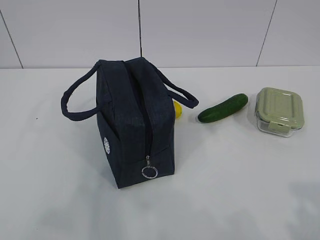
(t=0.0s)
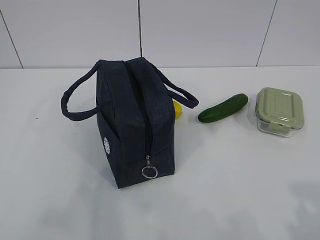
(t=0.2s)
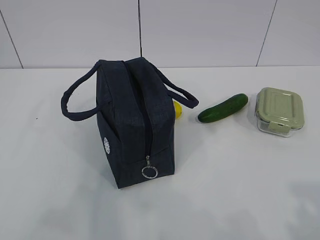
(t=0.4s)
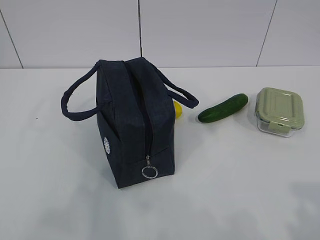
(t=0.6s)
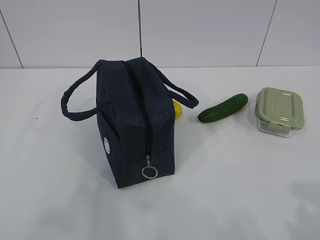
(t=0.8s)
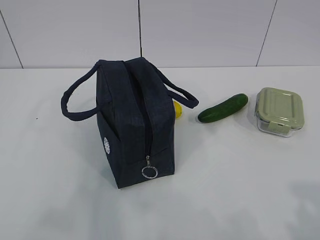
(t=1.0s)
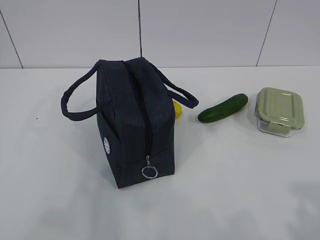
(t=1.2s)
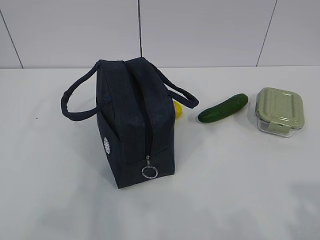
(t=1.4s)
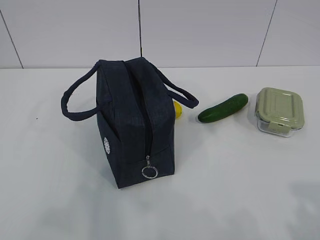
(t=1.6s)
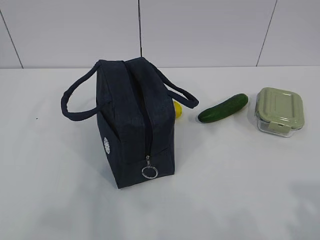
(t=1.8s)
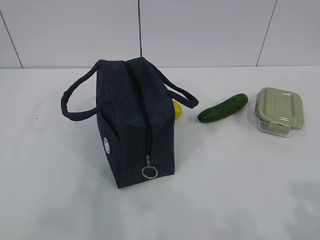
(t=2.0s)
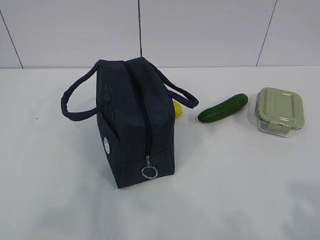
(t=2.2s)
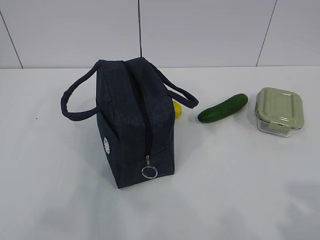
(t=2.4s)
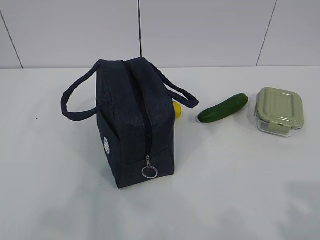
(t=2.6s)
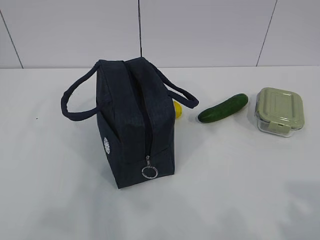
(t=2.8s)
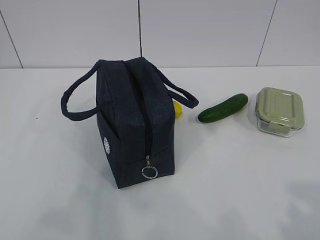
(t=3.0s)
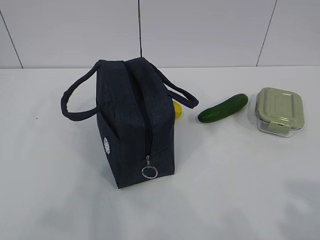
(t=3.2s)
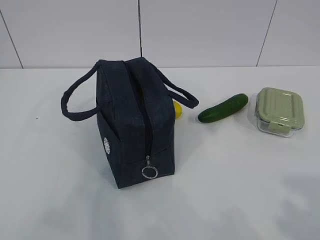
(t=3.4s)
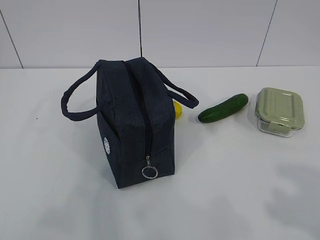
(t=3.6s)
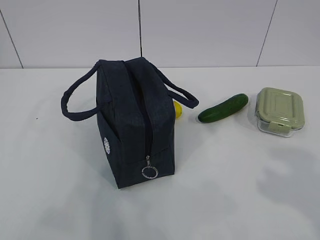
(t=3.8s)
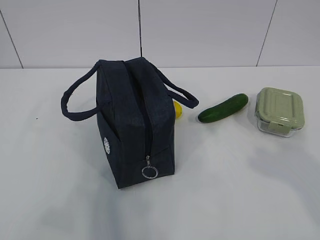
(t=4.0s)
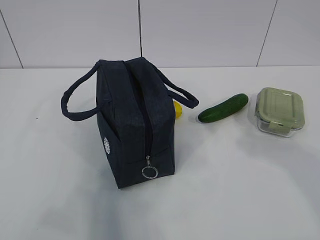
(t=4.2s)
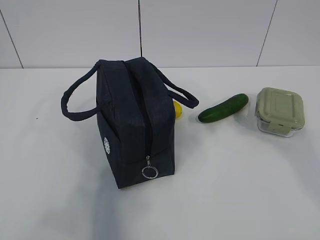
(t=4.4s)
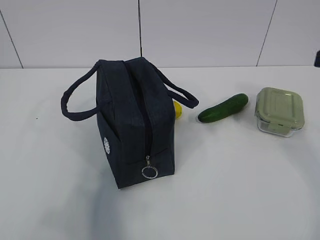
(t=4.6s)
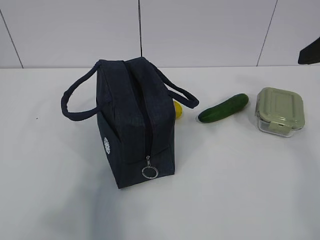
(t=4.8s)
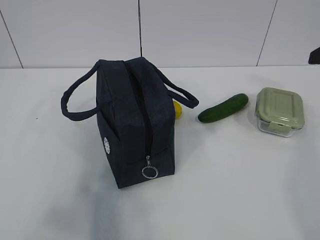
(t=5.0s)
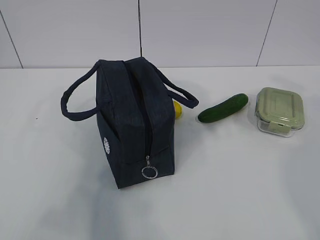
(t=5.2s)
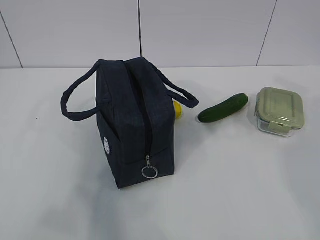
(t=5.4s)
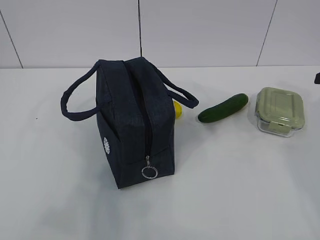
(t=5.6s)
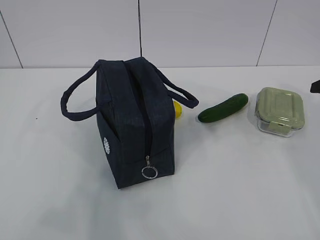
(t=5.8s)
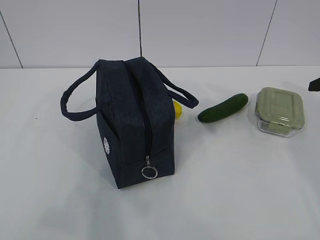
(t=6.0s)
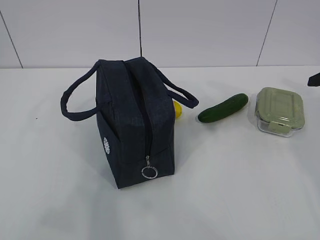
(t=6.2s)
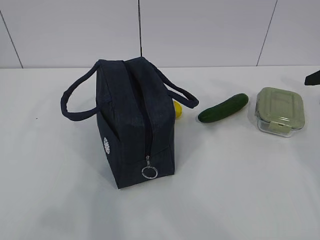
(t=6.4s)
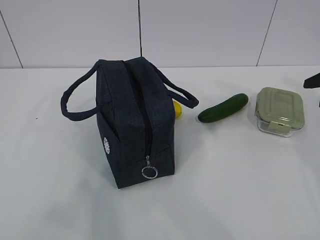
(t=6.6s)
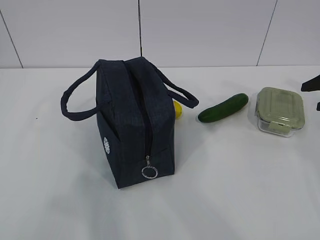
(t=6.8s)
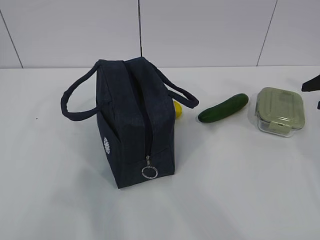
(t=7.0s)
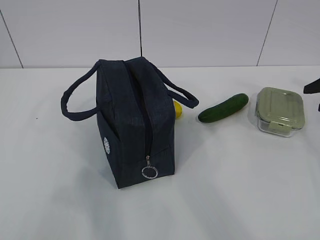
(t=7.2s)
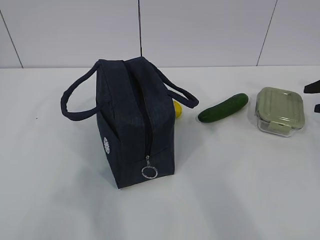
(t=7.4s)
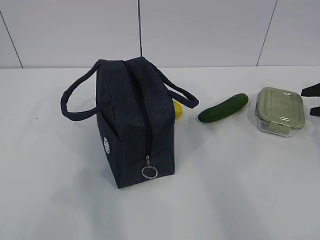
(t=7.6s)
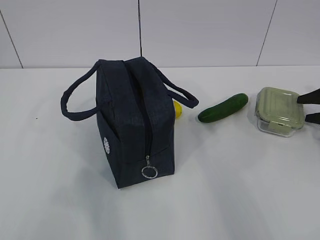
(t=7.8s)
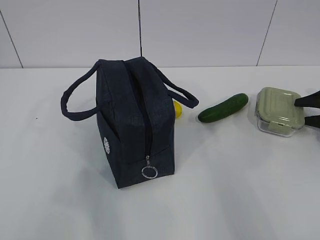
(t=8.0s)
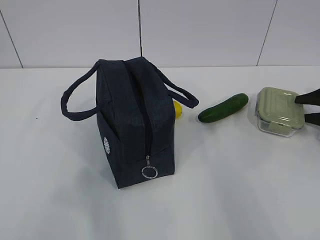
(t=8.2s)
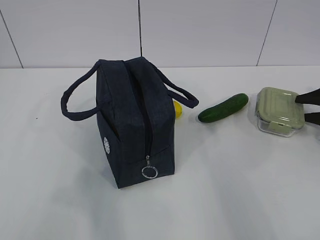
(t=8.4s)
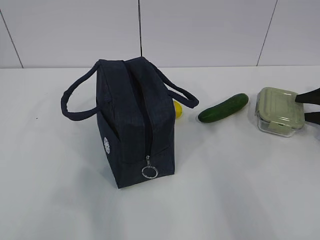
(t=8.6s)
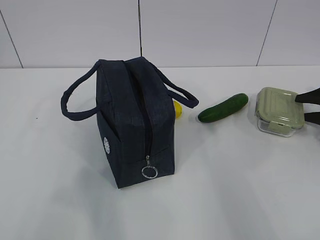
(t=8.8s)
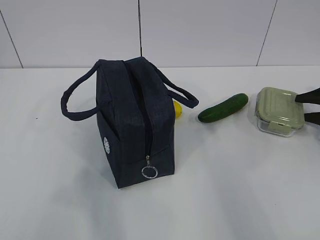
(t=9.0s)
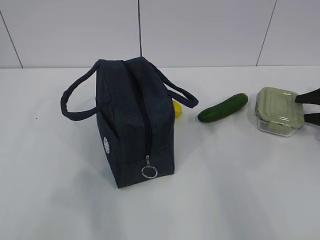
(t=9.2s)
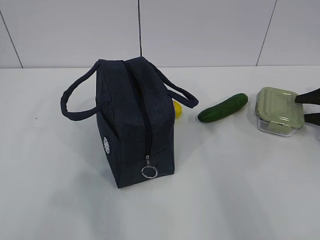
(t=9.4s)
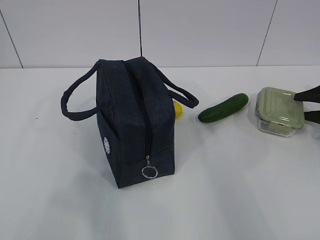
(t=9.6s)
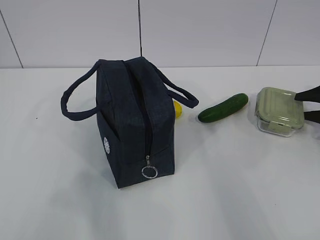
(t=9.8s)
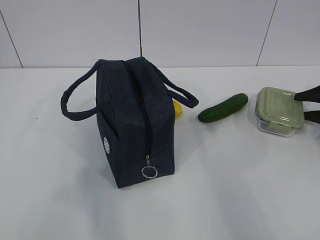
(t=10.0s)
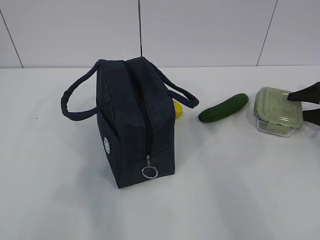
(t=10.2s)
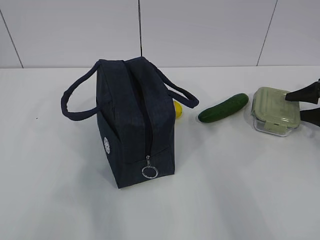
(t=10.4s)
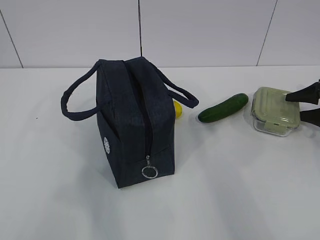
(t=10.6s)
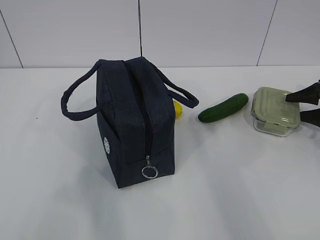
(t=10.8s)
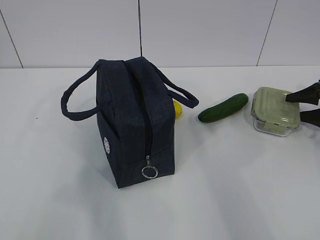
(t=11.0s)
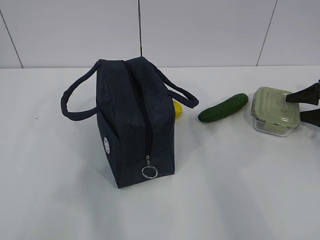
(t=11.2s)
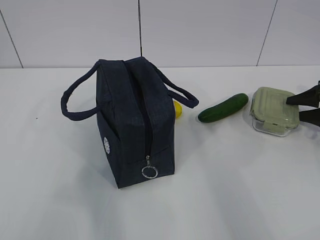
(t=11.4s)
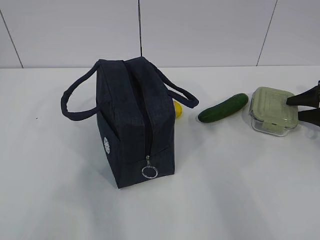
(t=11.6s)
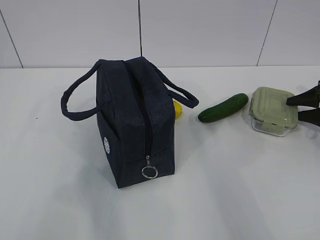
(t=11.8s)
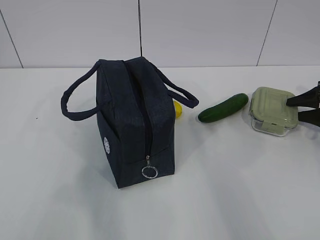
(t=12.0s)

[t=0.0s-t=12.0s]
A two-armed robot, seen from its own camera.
t=3.0s to t=4.4s: The right gripper goes some 20 cm forward and upward.
t=4.4s to t=6.0s: The right gripper goes approximately 25 cm forward, to the right and downward.
t=6.0s to t=7.6s: The right gripper heads downward, forward and to the right, covering some 15 cm.
t=9.0s to t=10.4s: There are only small adjustments of the grippers.
t=10.4s to t=12.0s: Neither gripper changes place.

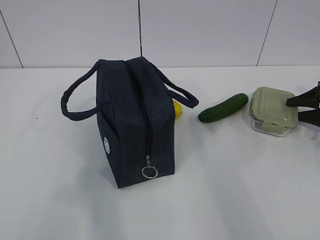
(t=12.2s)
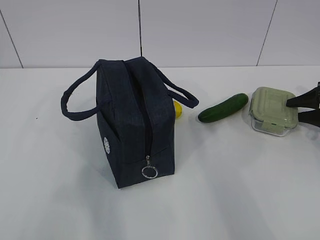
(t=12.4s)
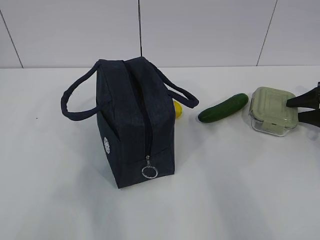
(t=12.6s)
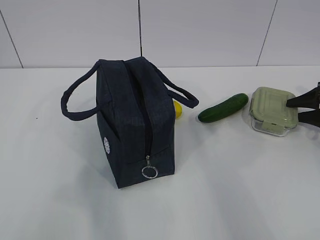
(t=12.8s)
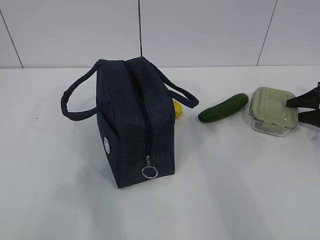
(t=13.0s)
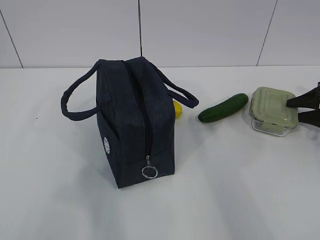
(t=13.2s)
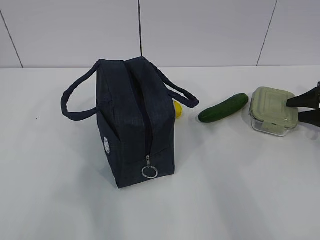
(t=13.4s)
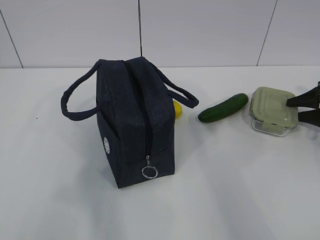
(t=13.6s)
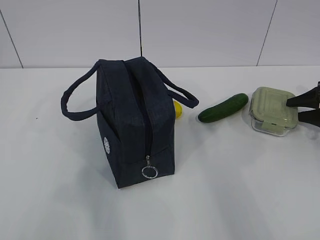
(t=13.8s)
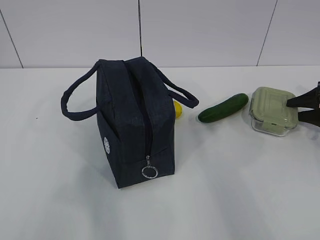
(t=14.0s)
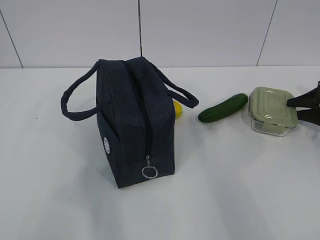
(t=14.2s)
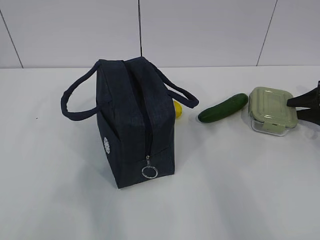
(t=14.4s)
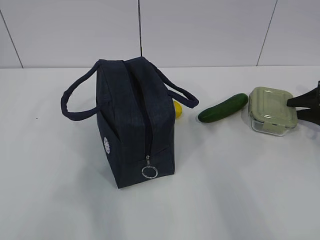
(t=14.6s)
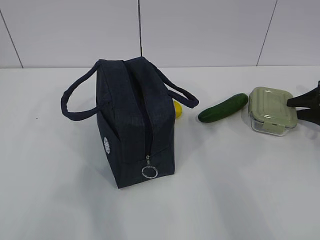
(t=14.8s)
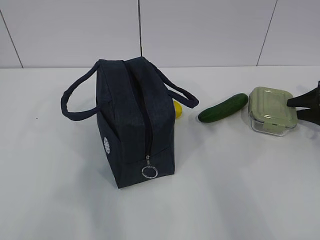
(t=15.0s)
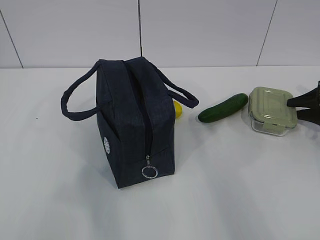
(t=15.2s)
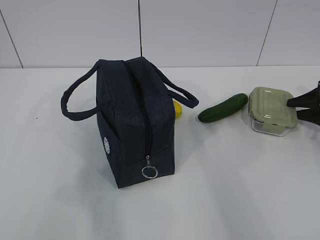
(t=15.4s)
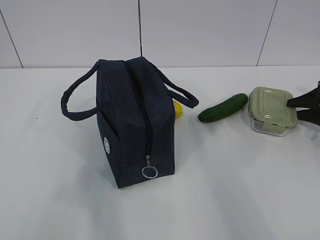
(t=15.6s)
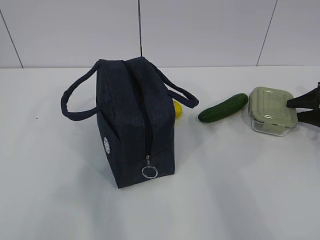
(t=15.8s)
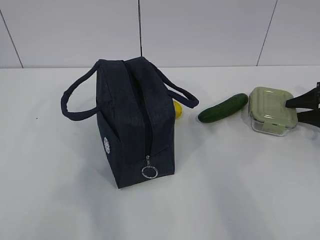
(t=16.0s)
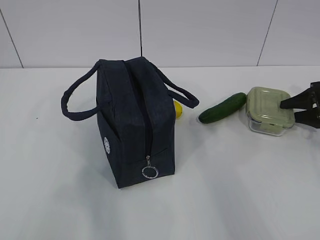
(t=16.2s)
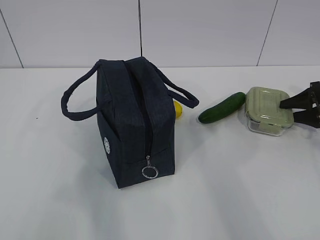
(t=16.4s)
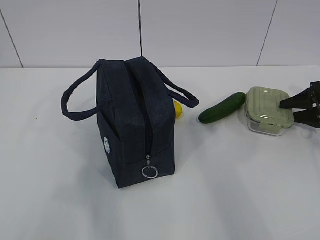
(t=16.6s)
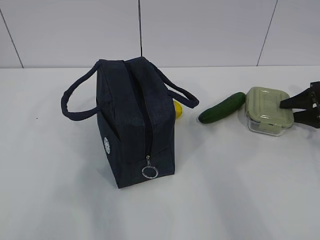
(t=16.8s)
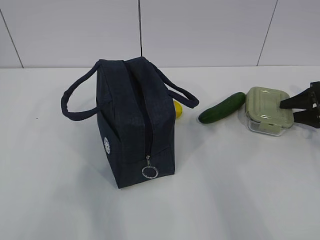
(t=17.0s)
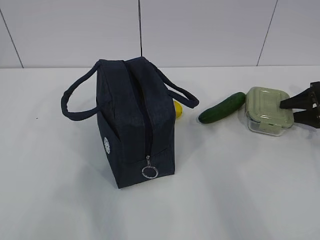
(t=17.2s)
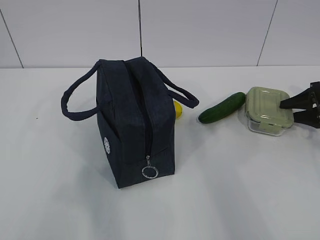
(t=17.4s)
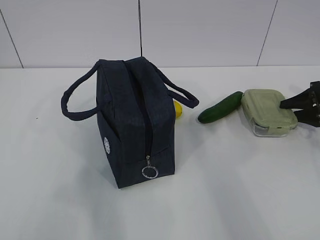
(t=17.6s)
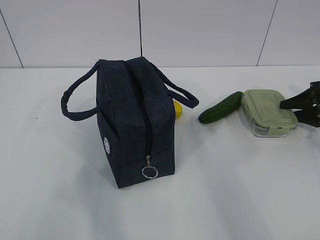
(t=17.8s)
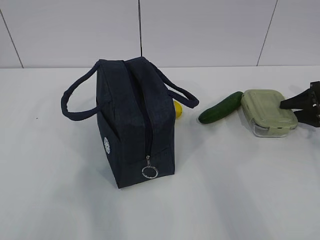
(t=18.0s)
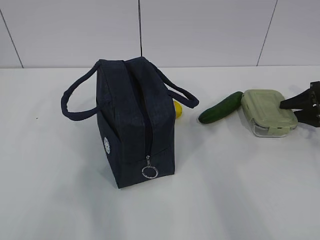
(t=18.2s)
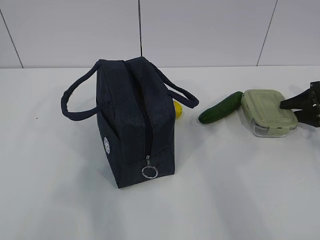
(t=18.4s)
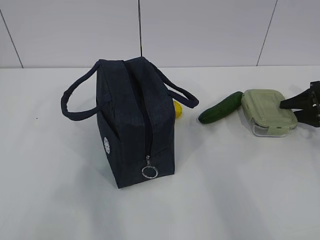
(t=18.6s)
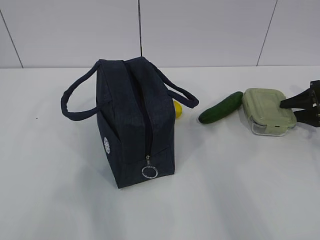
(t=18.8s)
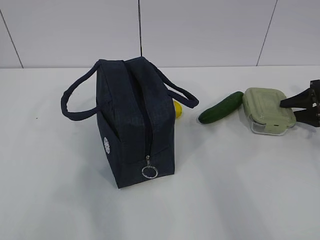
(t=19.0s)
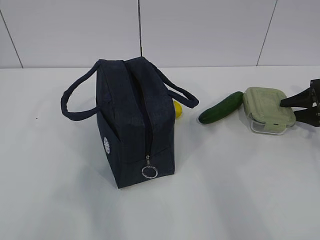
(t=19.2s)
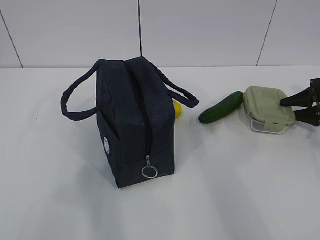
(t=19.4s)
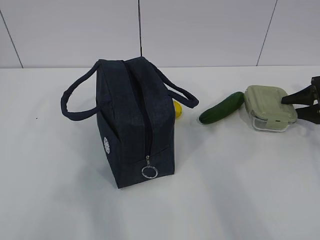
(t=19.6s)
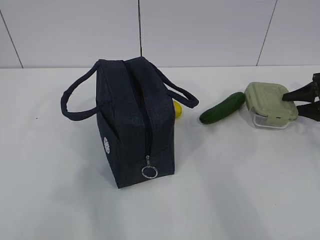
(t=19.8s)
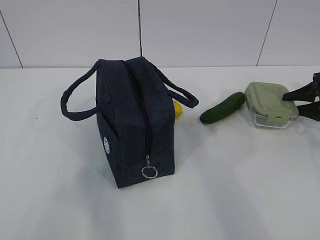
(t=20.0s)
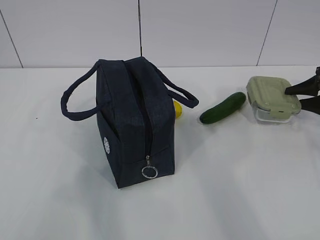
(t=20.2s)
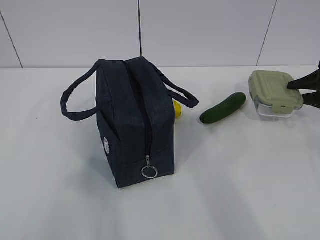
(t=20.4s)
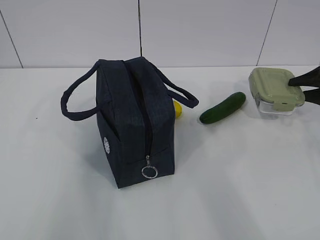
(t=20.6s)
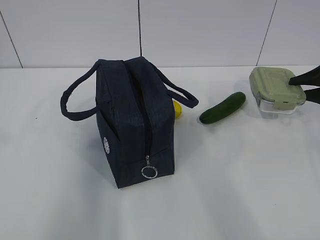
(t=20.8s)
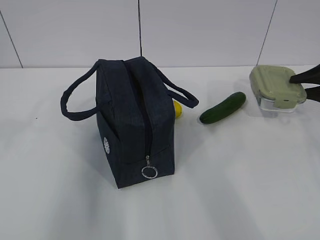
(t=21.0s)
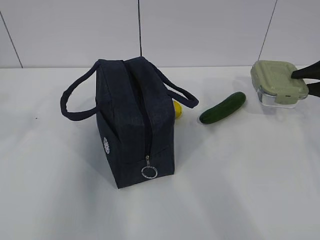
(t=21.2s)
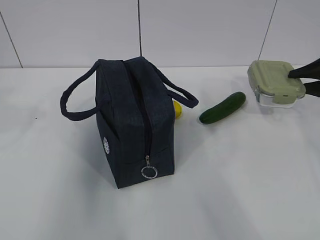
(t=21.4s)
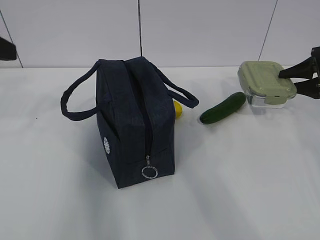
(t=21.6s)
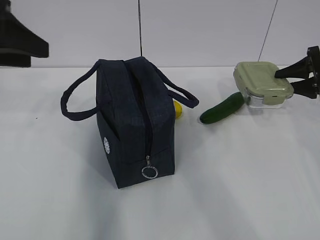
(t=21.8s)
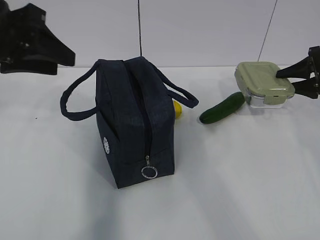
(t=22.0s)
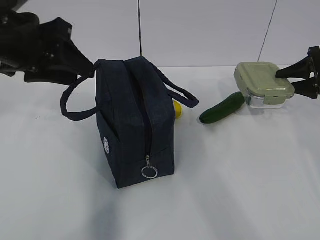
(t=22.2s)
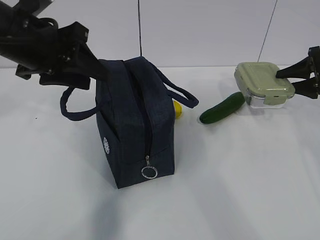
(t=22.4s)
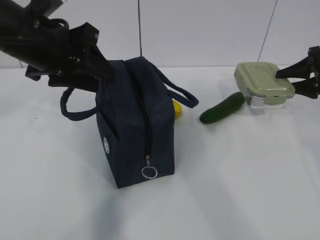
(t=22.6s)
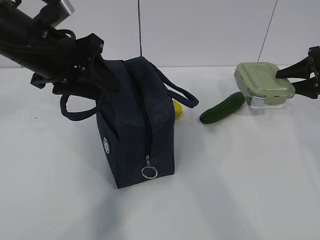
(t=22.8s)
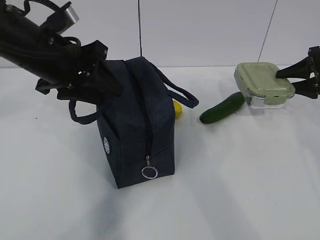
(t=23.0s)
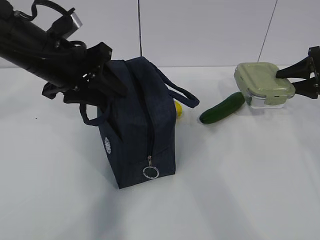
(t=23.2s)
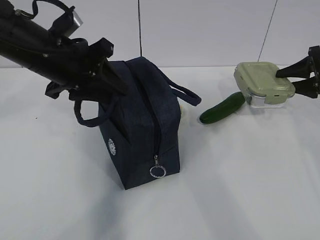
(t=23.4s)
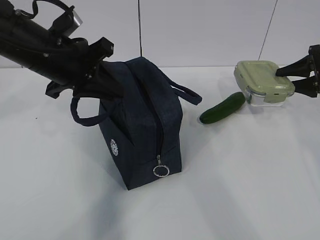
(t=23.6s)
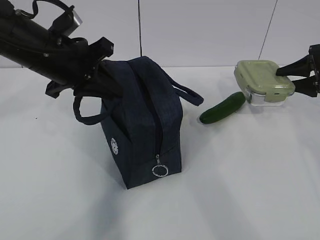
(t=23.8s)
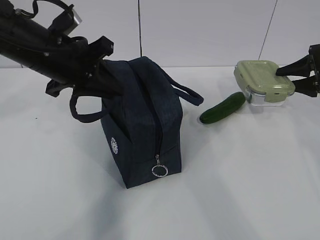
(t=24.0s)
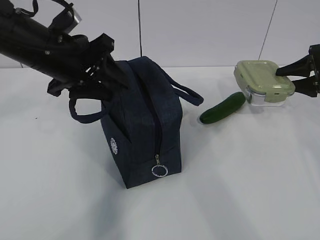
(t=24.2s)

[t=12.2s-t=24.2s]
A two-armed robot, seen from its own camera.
Step, t=14.8s to t=22.8s: Grab the lunch bag with your left hand.
t=12.2s to t=18.2s: Neither gripper changes place.
t=18.2s to t=19.8s: The grippers stay close to where they were, moving slightly.
t=19.8s to t=21.2s: The right gripper moves upward, some 5 cm; the left gripper moves forward, some 15 cm.
t=21.2s to t=22.6s: The left gripper shifts some 20 cm to the right and forward.
t=22.6s to t=24.2s: The left gripper closes and opens again.
